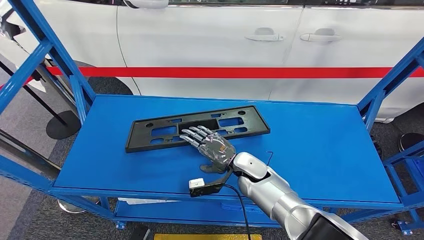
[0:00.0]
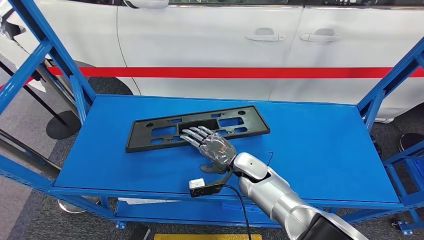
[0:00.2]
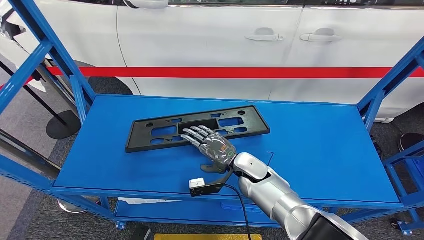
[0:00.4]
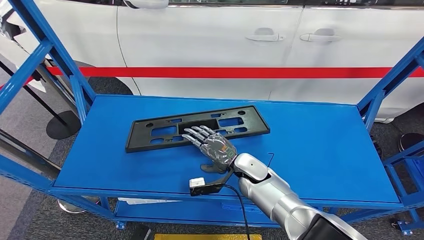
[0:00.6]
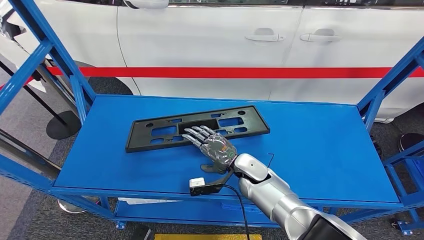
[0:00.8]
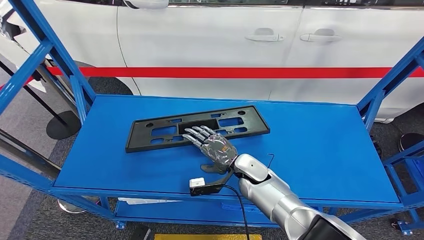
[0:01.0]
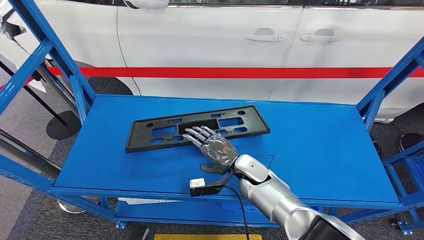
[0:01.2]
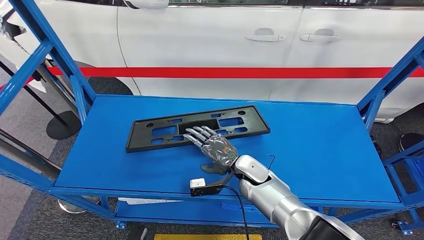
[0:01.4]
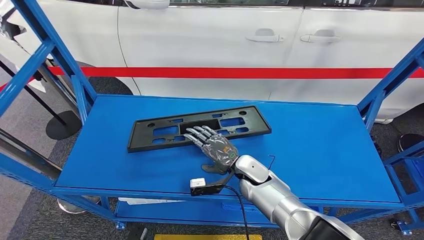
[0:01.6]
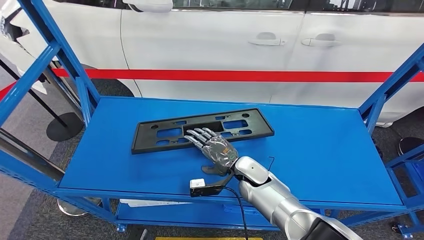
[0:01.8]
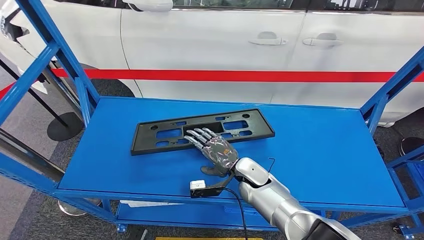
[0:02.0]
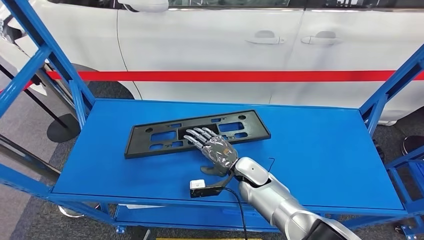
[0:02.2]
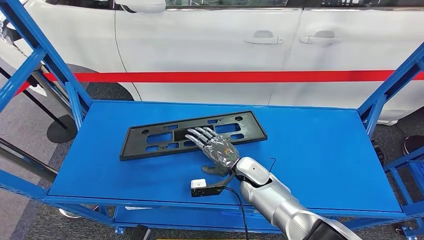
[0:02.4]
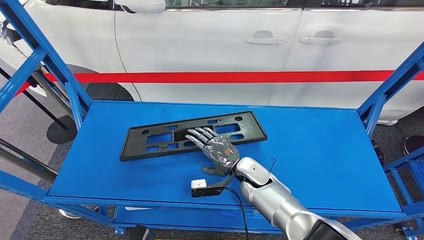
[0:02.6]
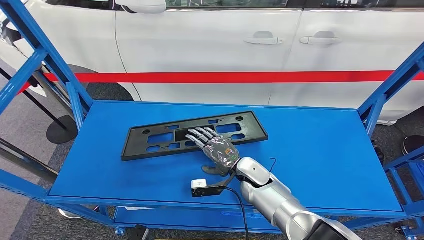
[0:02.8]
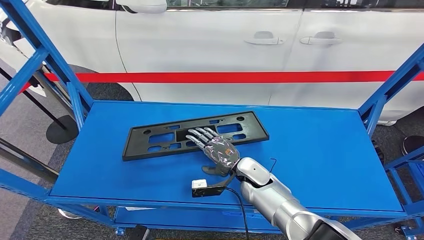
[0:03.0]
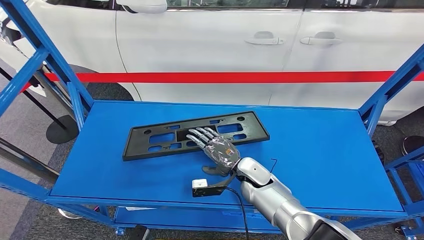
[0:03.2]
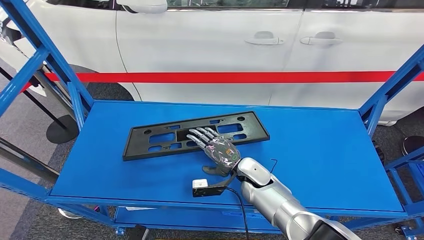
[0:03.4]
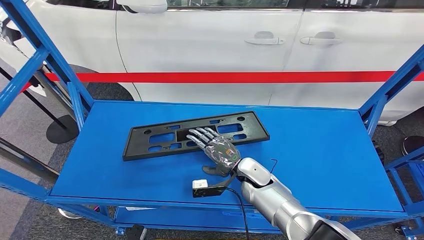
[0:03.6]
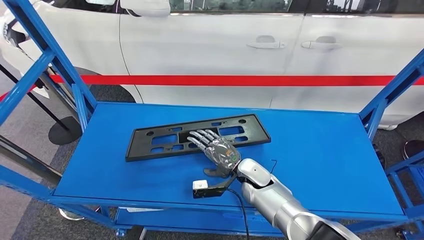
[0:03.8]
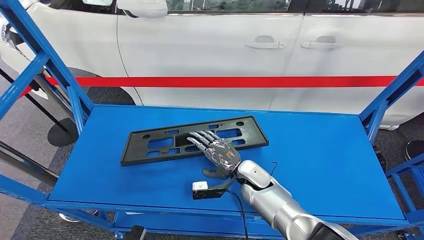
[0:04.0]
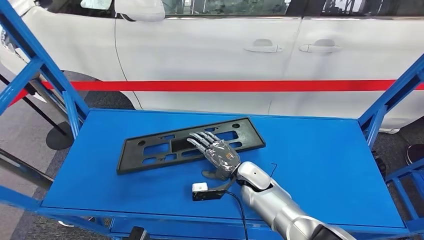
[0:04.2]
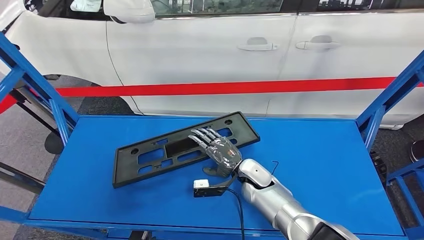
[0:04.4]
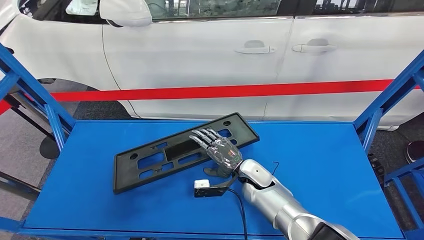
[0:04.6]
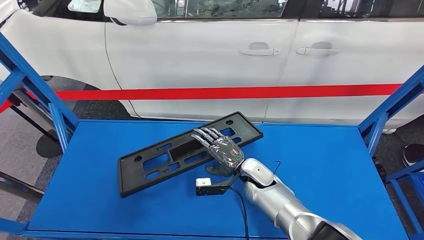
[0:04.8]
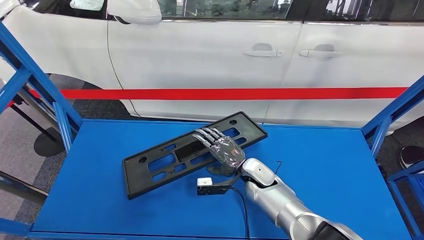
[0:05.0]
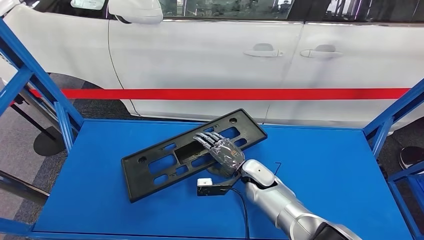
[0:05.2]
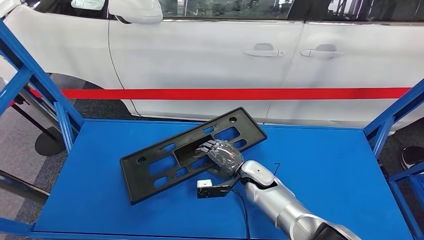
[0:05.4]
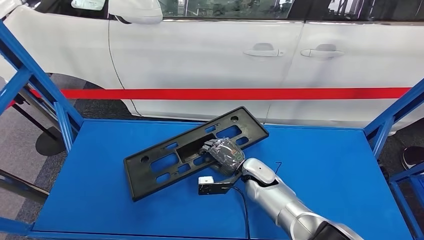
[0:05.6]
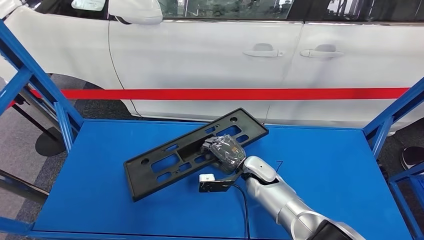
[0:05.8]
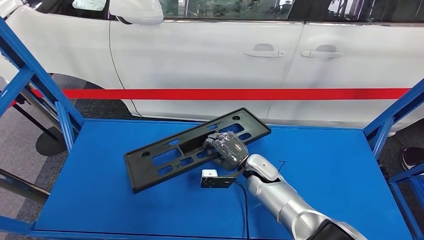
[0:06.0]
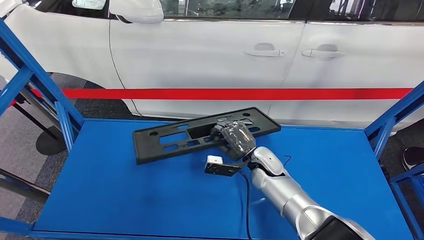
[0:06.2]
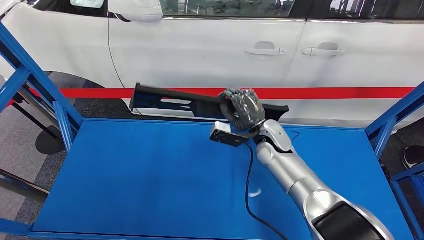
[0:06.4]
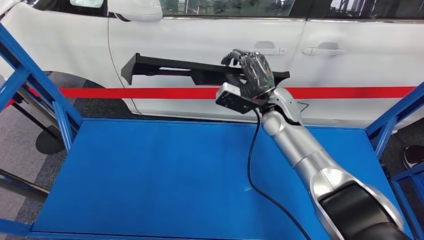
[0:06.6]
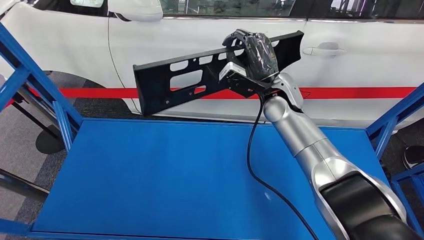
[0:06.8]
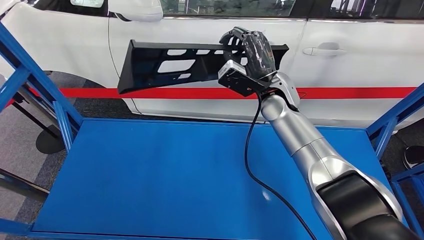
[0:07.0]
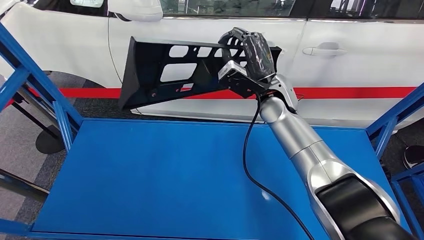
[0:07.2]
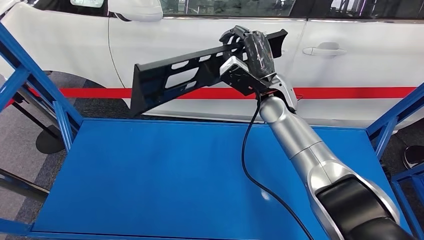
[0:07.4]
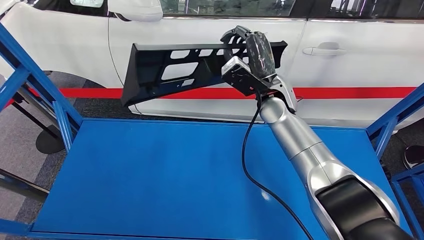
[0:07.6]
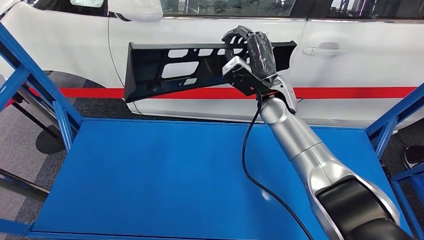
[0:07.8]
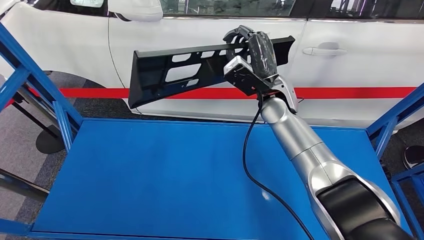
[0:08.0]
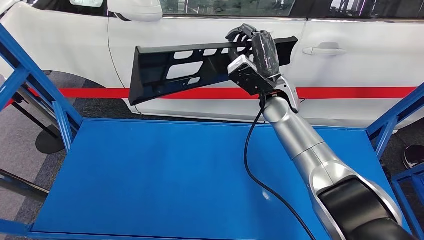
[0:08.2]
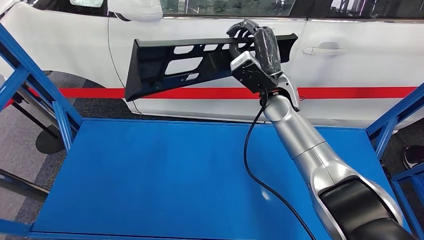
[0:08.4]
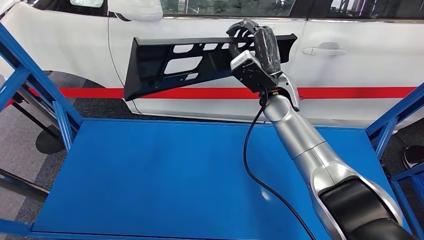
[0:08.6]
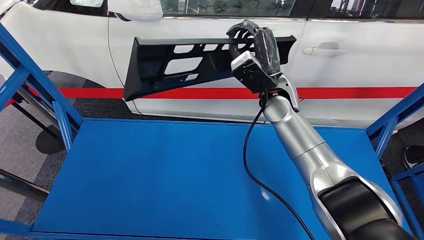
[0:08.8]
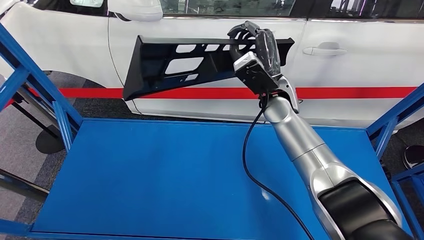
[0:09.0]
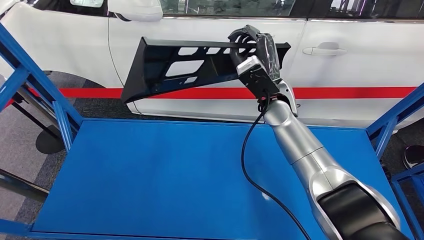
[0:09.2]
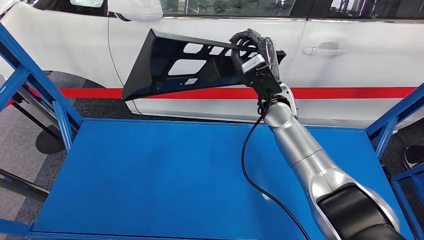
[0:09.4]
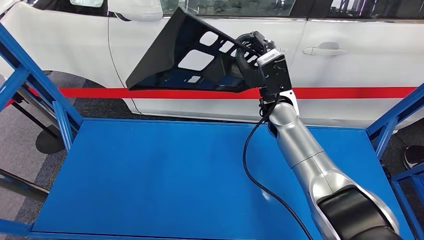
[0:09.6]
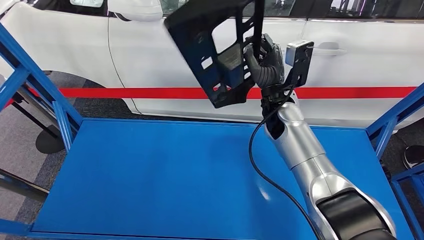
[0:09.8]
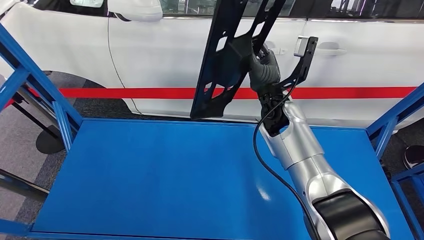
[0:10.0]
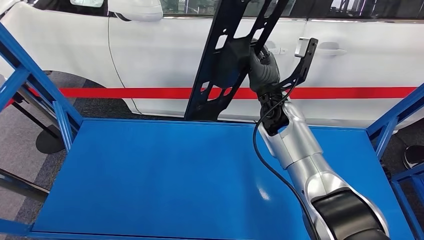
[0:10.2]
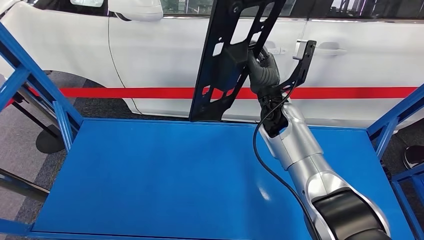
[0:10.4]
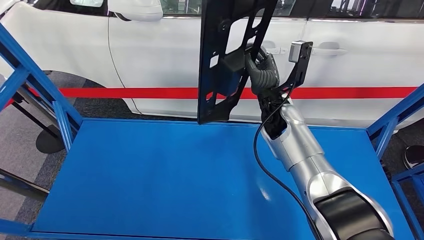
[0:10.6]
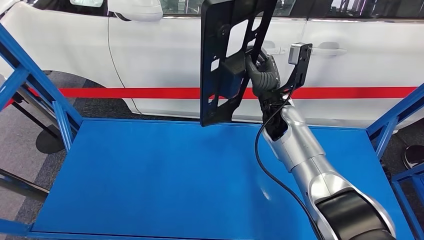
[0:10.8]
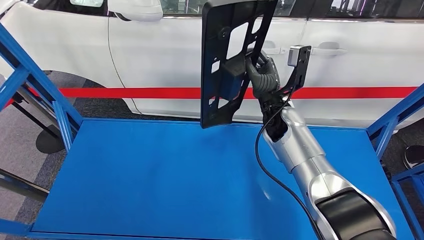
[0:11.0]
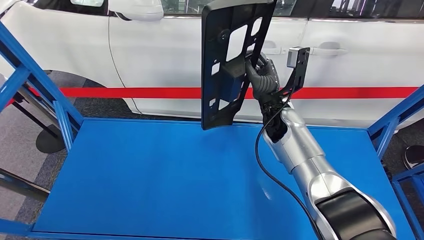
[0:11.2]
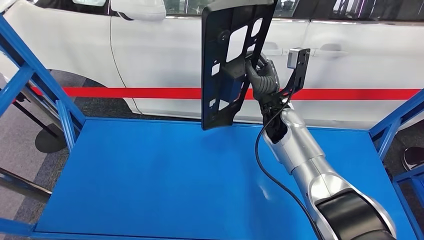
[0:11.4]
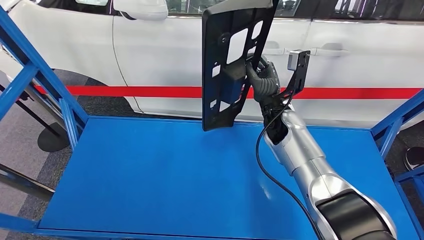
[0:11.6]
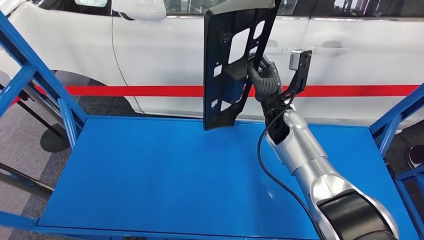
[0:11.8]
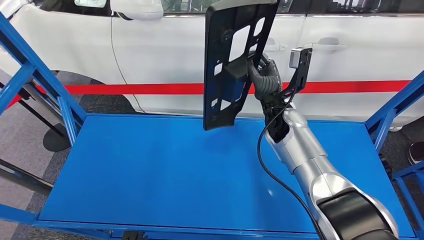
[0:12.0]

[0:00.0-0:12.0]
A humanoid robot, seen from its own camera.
Step, 0.0 to 7.0 s: Pick up the large material from the shelf.
0.0 to 1.6 s: The hands move only a little.
7.6 to 9.0 s: The hands move only a little.

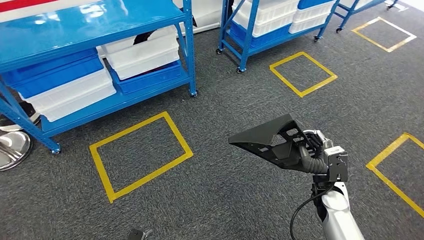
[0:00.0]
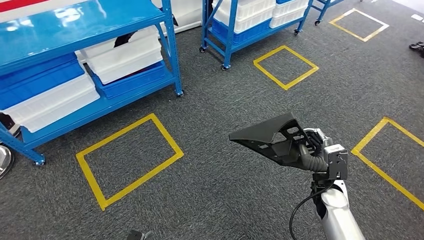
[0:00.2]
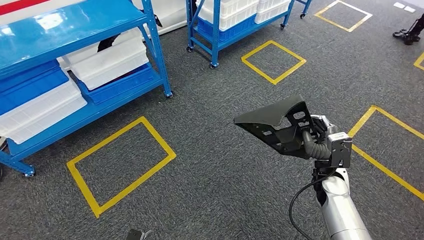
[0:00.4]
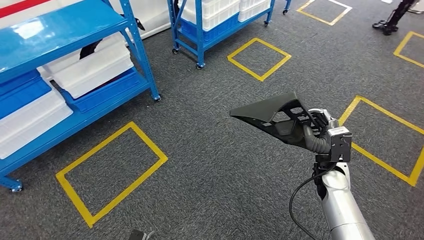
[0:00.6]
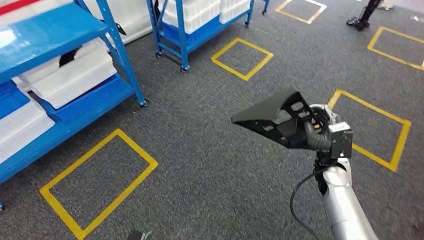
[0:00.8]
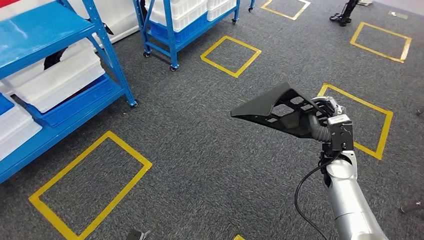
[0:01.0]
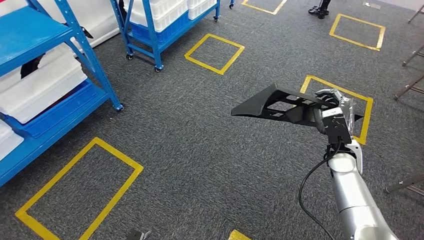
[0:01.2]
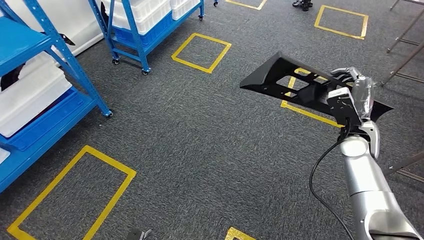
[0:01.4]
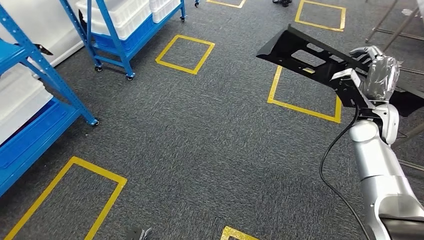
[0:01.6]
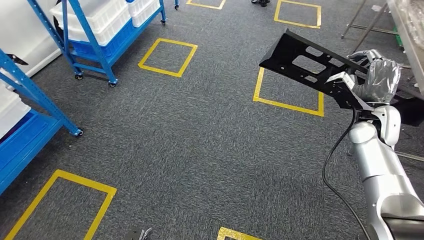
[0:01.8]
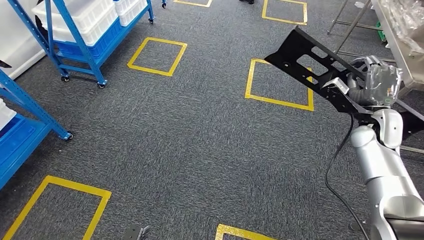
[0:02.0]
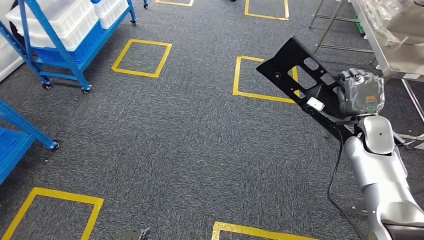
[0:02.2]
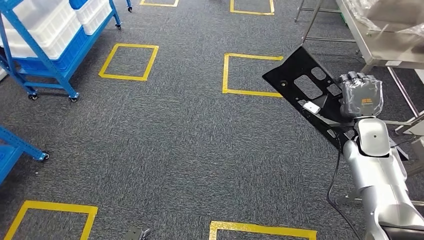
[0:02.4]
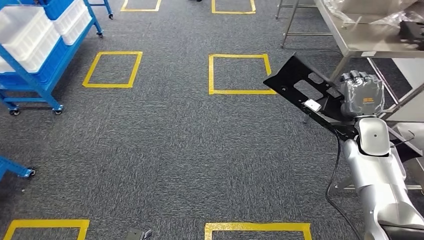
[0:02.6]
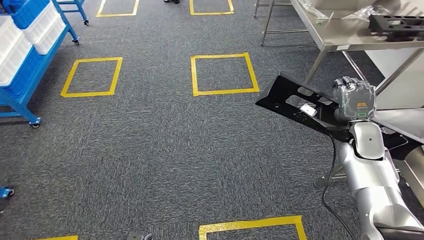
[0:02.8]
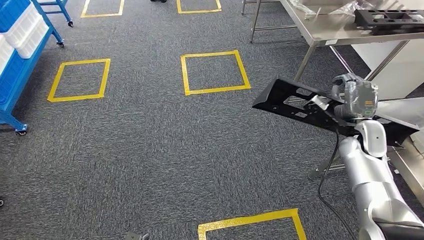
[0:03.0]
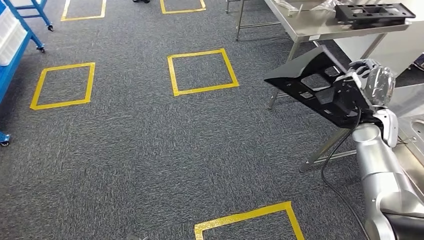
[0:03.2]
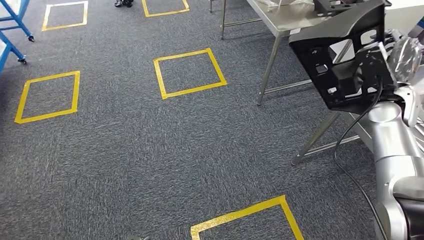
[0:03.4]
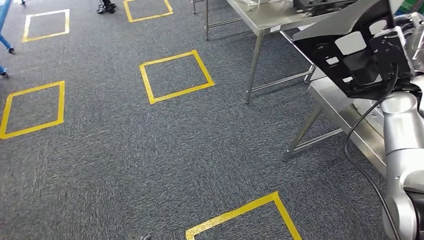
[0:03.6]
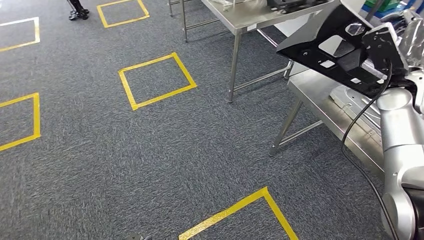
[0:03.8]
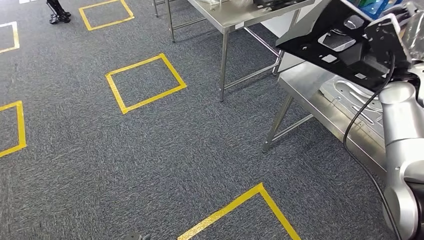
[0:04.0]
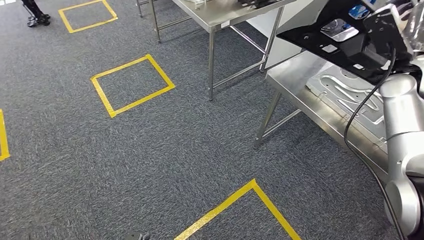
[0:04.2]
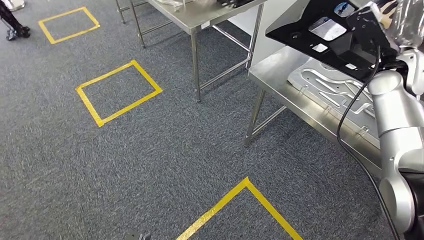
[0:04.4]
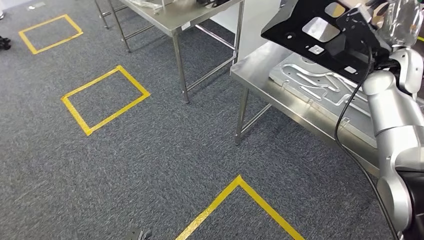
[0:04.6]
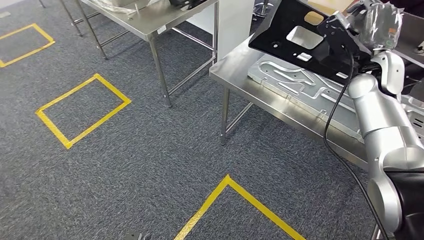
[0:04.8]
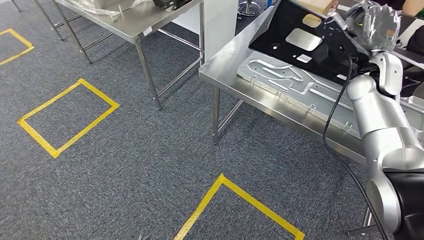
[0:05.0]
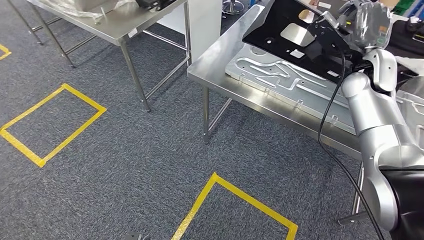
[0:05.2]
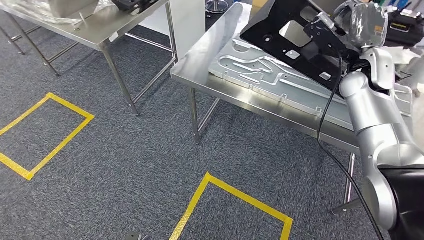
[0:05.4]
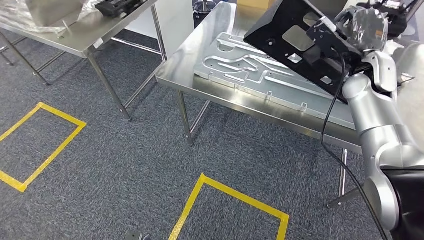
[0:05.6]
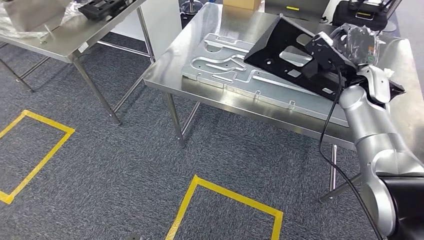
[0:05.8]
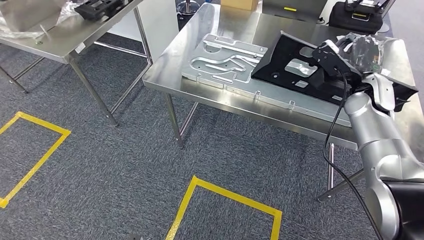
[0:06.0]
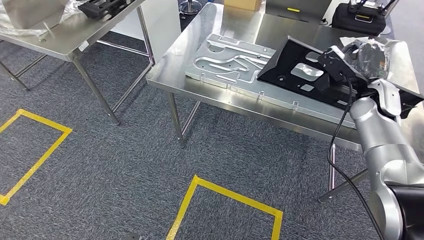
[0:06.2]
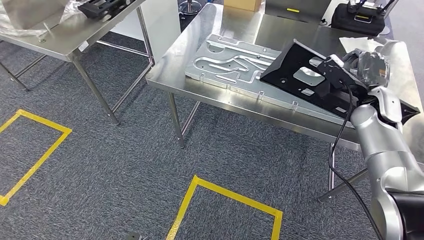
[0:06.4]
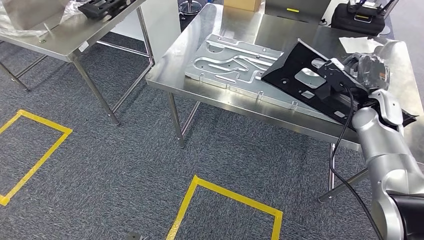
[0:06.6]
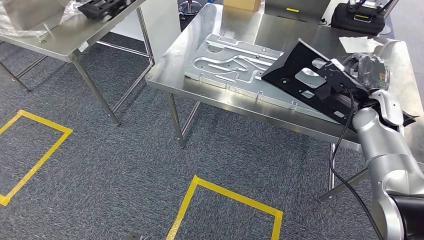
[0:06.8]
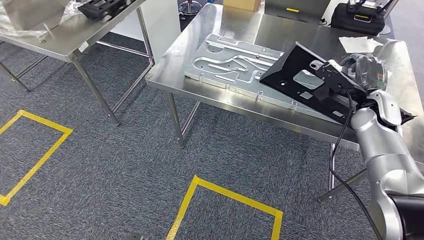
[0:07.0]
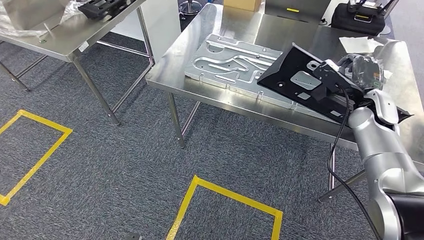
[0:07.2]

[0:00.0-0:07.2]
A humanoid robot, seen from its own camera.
Step, 0.0 to 6.8 s: Move the large material to the front of the workbench.
